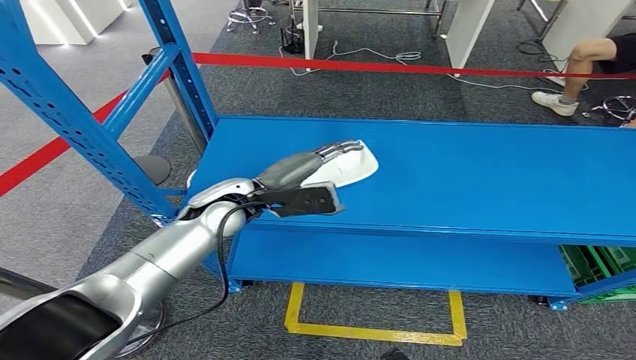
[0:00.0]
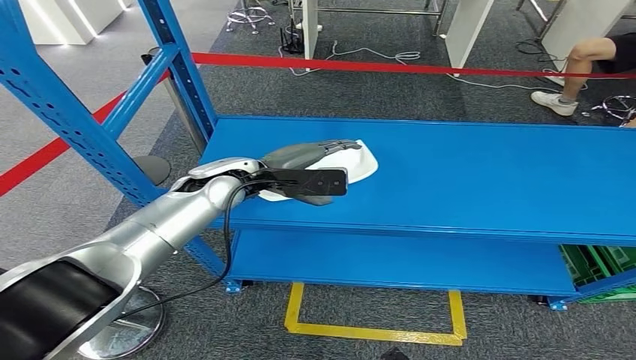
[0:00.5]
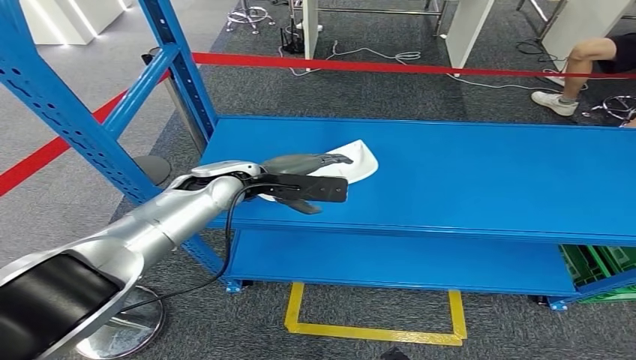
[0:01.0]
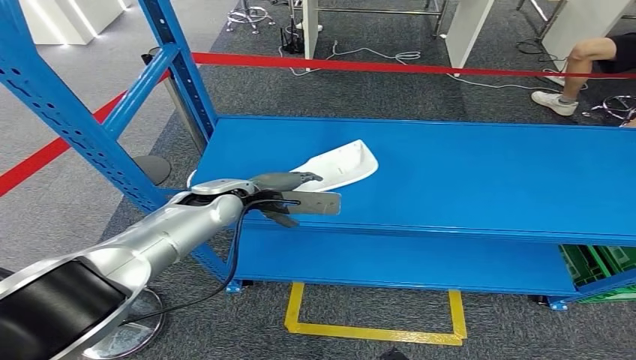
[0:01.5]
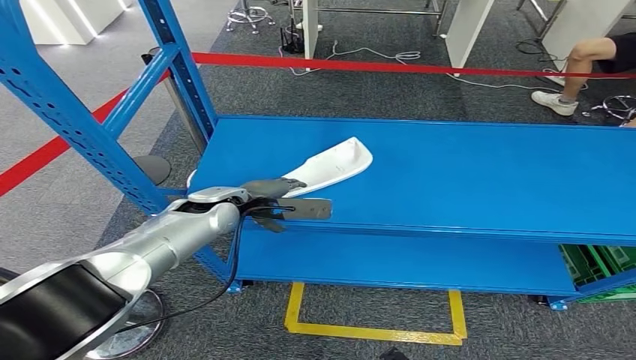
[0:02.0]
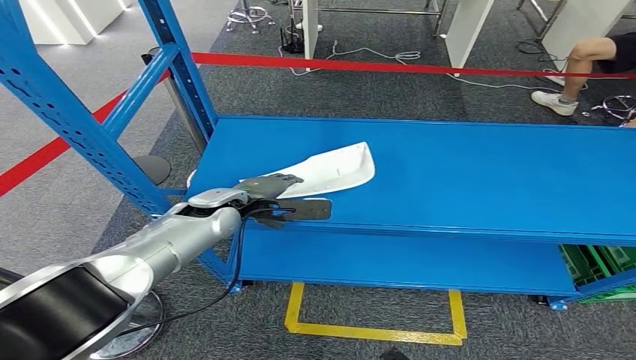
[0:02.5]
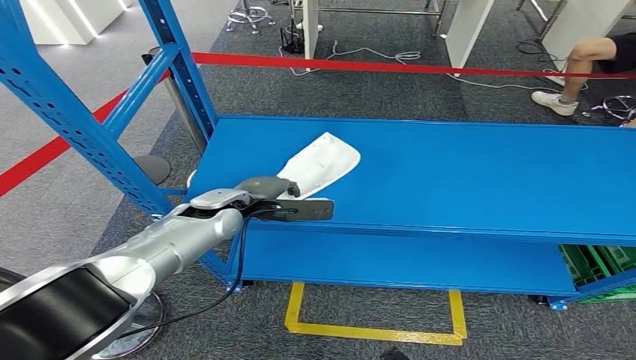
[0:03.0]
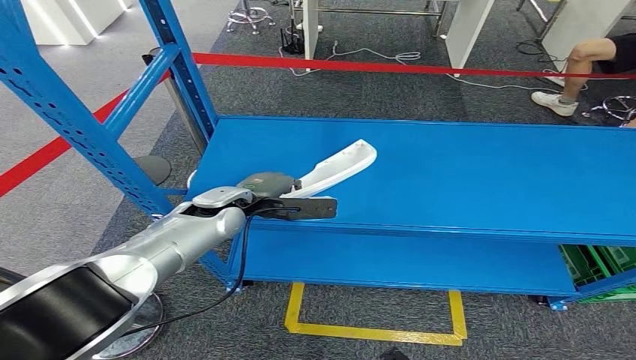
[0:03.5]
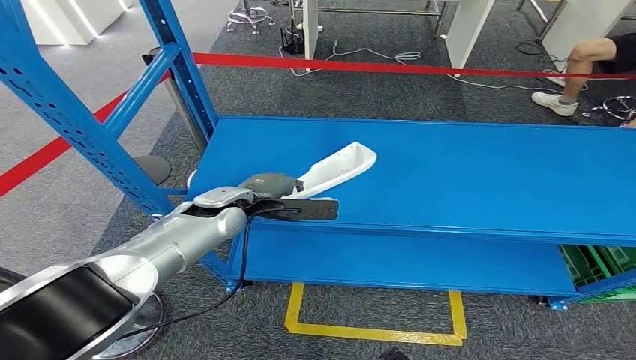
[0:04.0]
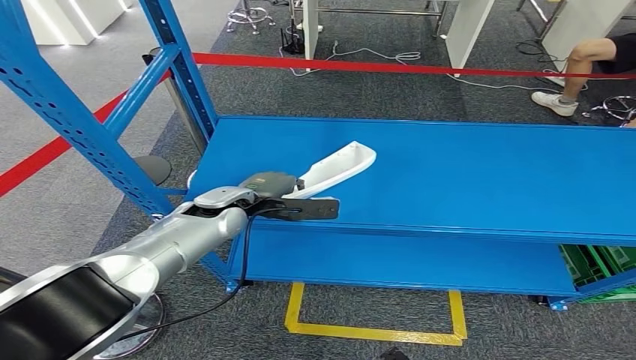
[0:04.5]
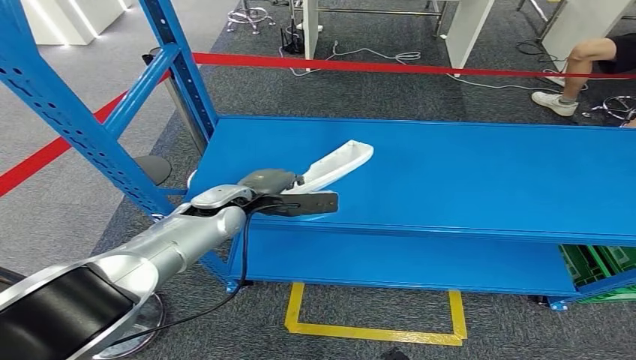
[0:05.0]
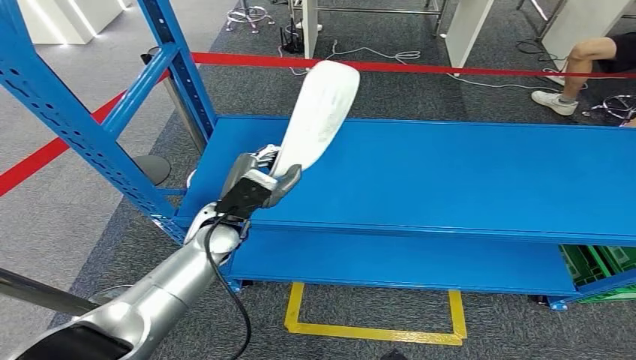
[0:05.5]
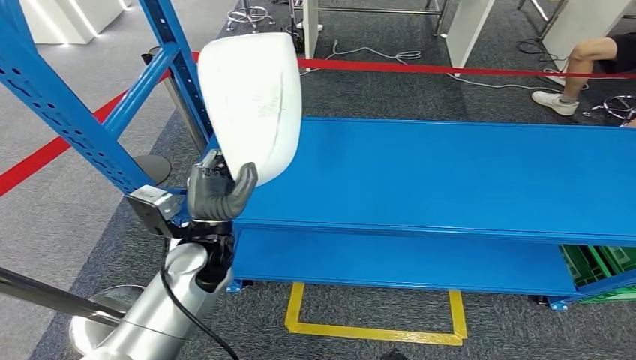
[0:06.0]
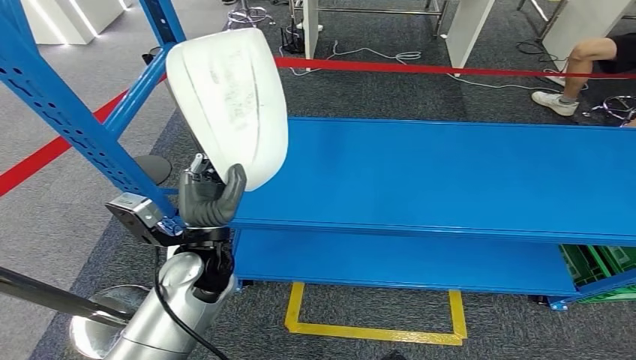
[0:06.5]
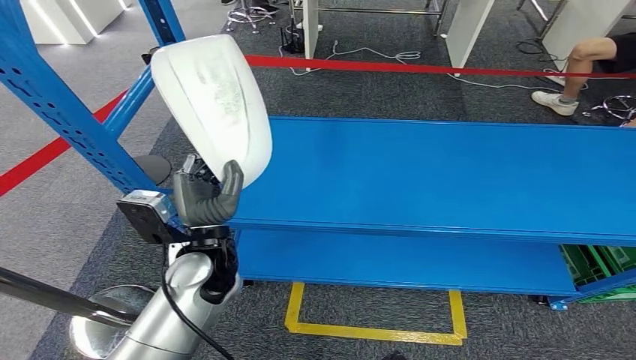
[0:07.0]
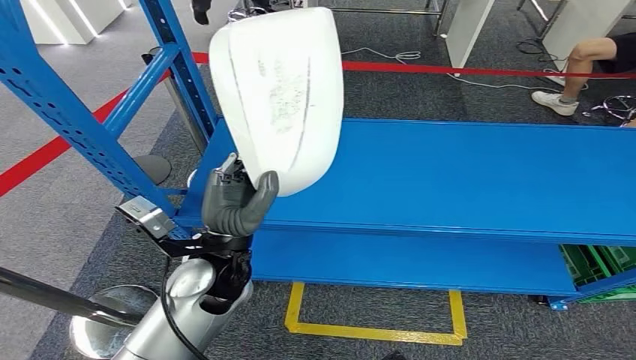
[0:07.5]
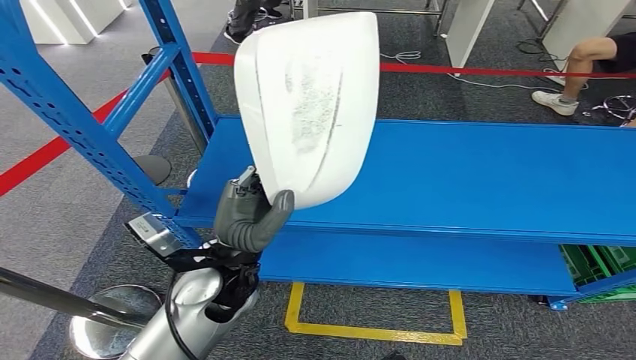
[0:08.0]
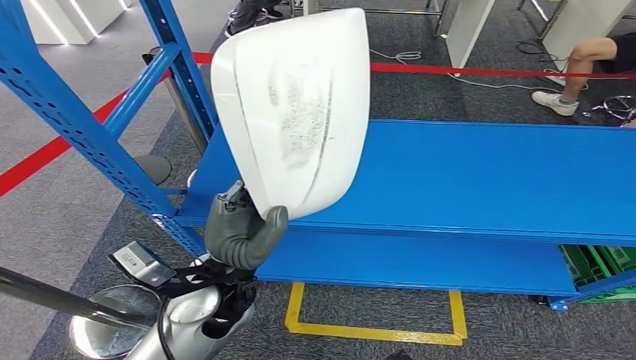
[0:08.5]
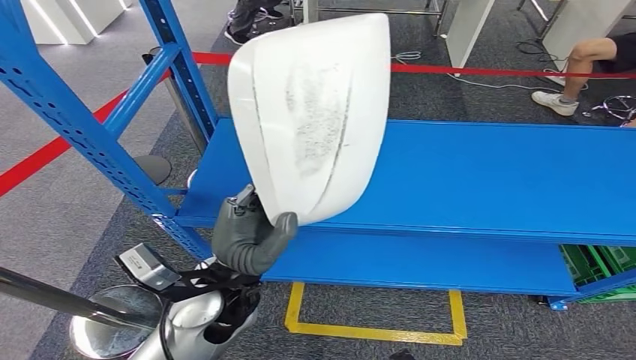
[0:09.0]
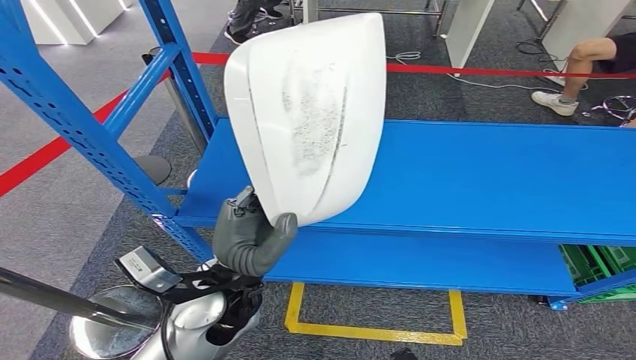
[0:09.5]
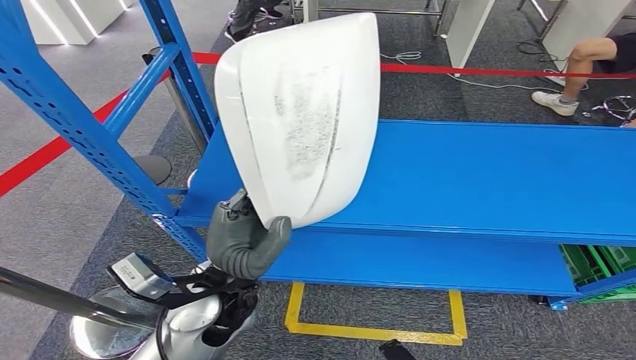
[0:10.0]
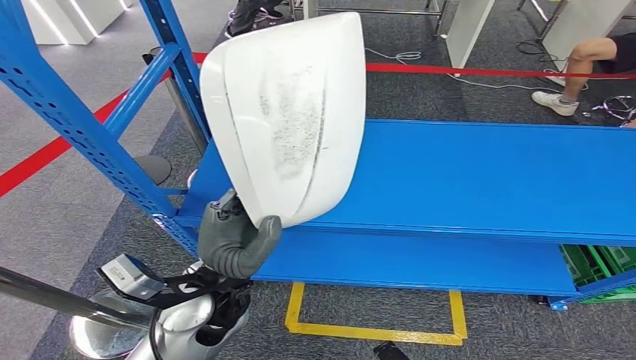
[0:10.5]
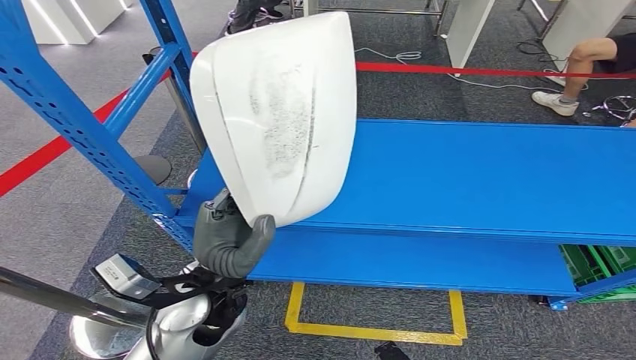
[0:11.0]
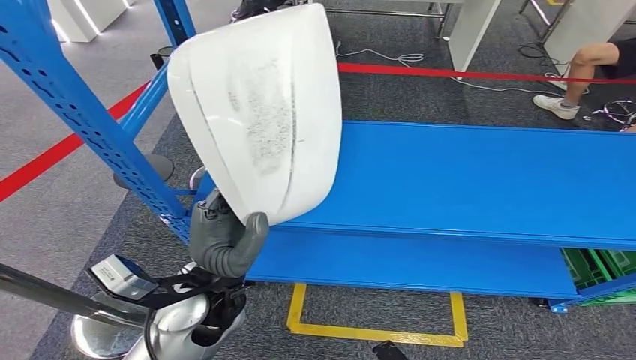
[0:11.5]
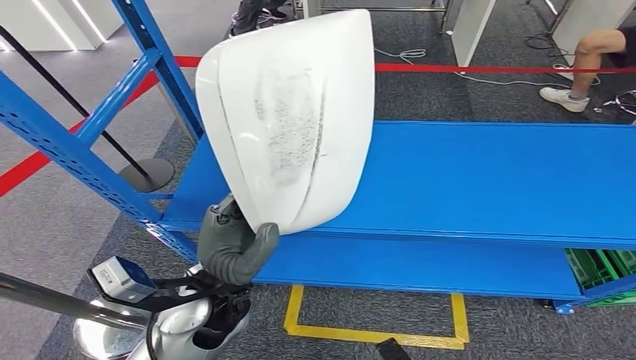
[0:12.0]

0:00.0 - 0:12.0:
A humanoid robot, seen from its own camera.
Step, 0:00.0 - 0:06.5: Pick up the small component from the shelf.
0:00.0 - 0:02.0: The left hand ends up approximately 5 cm from where it was.
0:02.0 - 0:04.0: There are only small adjustments of the hands.
0:04.0 - 0:06.0: The left hand moves backward, about 10 cm.
0:06.0 - 0:08.0: The left hand moves backward, some 5 cm.

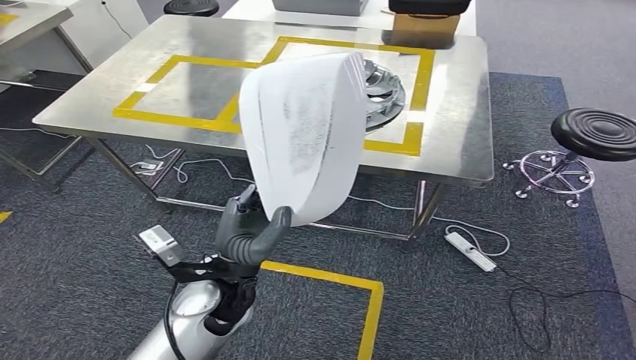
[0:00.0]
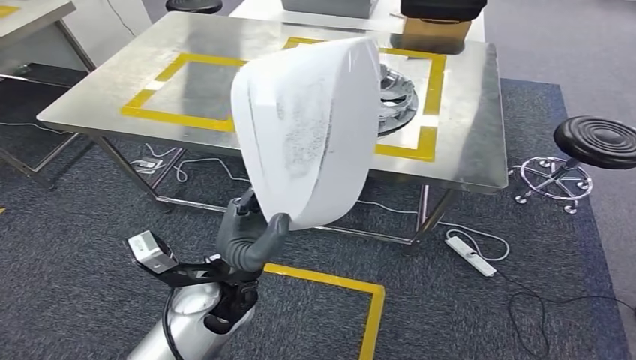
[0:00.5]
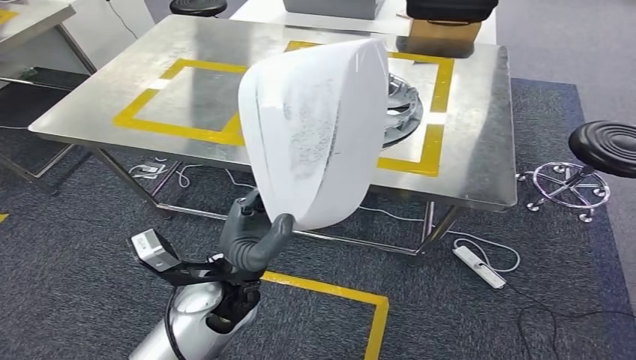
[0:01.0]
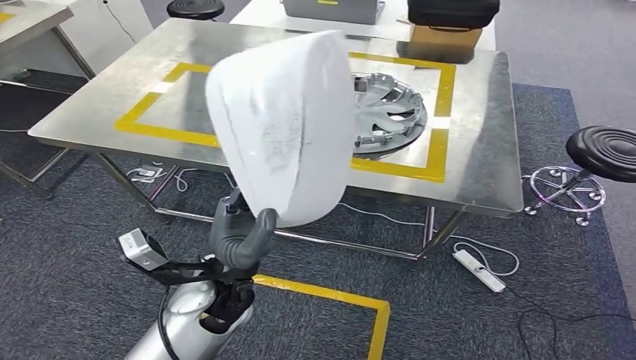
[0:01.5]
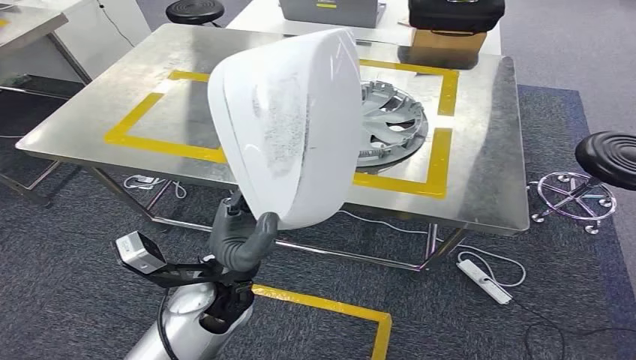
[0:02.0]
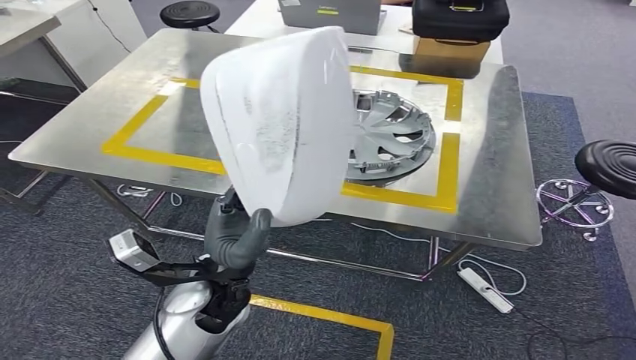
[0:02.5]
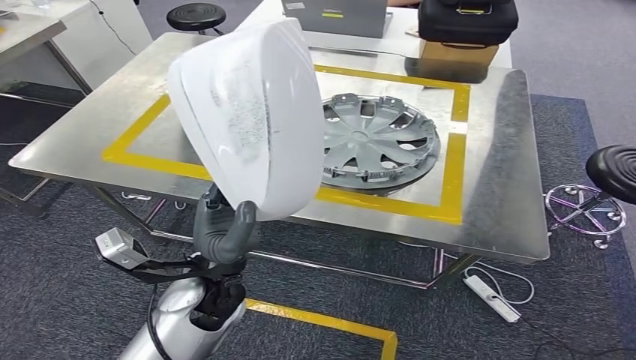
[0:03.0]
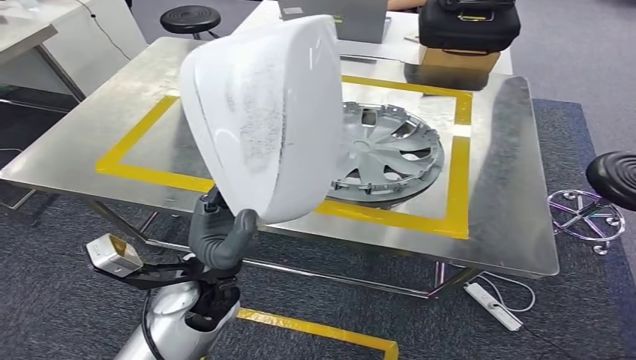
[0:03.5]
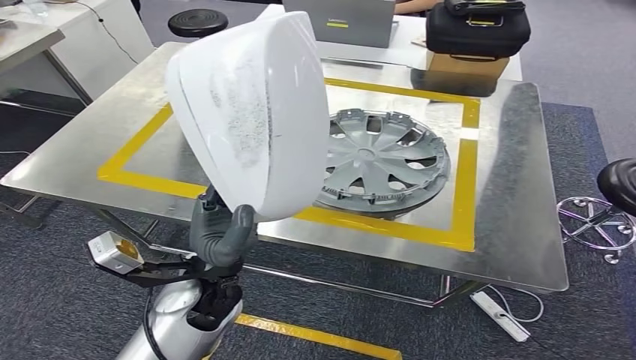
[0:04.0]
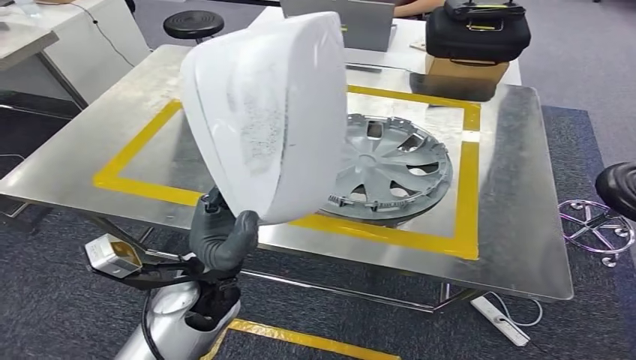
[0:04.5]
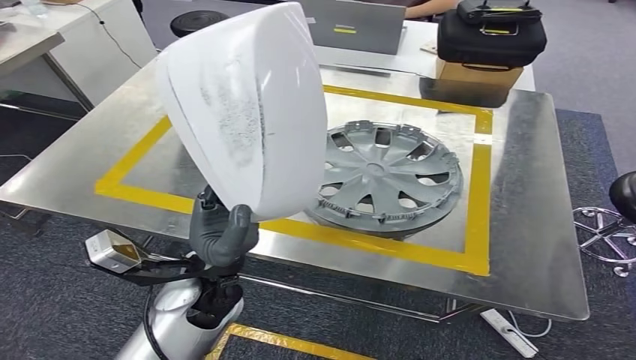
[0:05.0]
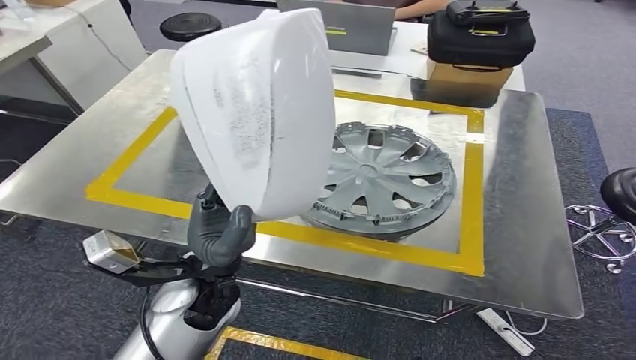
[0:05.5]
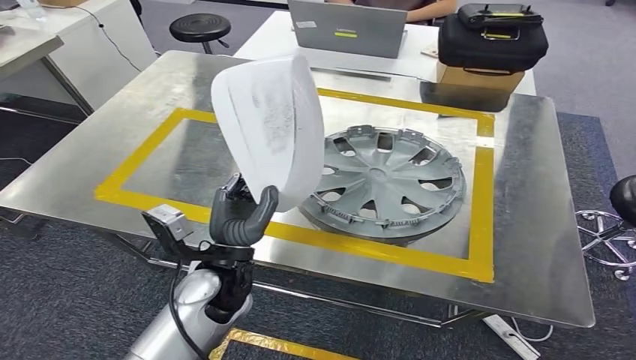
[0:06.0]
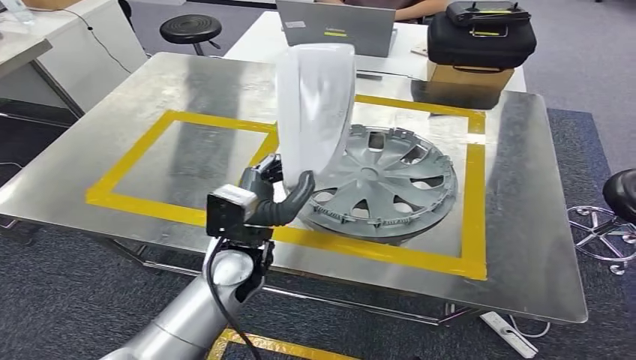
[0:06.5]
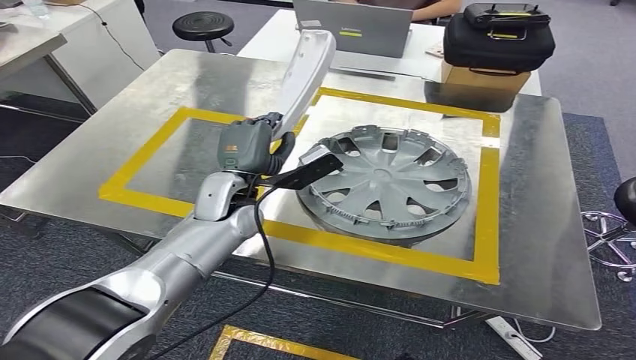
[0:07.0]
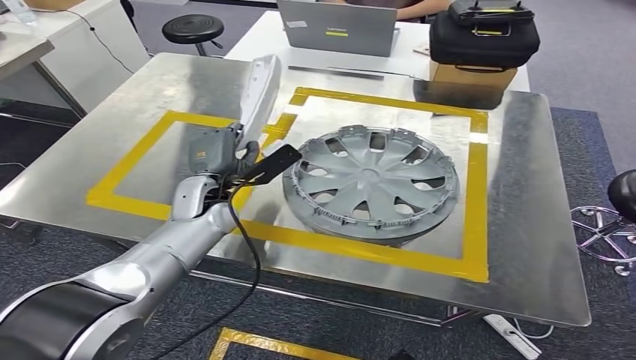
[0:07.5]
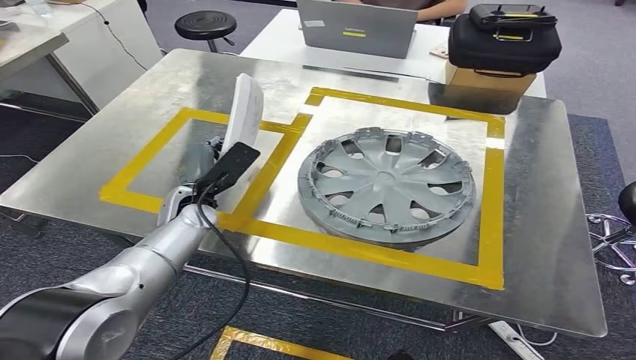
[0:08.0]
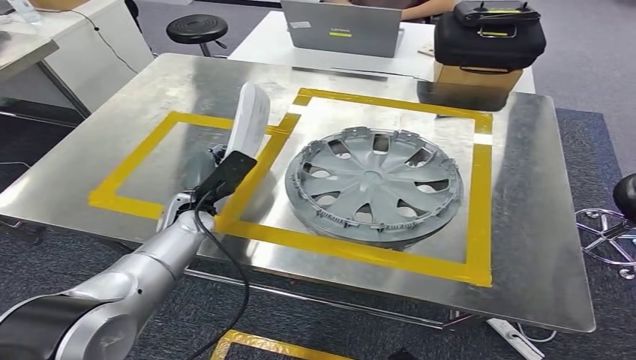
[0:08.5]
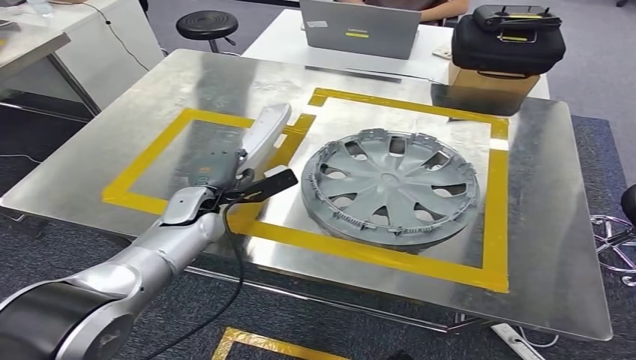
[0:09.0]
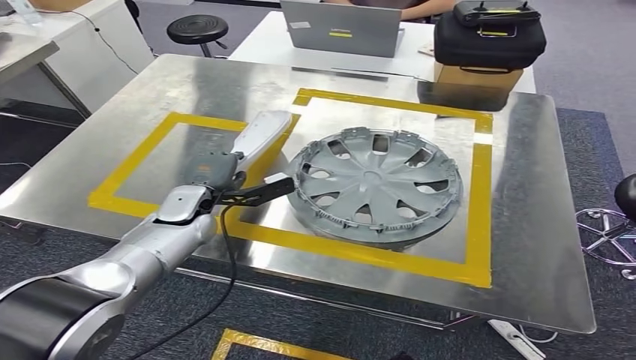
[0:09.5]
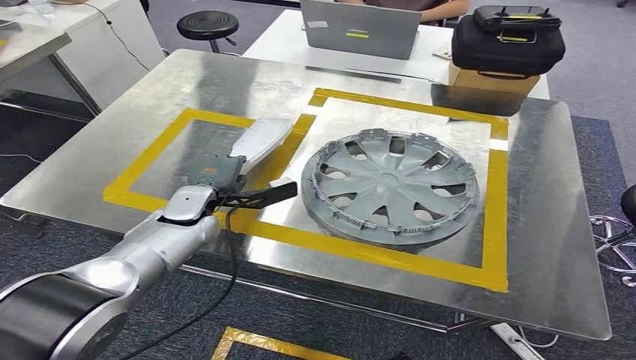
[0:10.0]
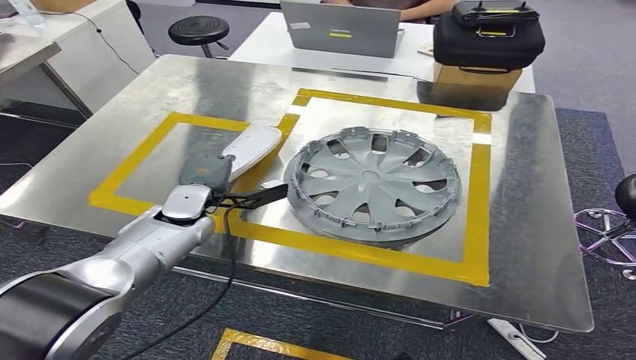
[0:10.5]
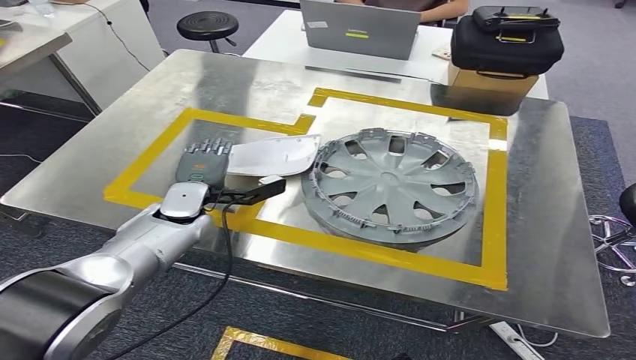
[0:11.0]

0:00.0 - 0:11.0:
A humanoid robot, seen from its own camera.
Step, 0:00.0 - 0:04.5: Move the small component to the workbench.
